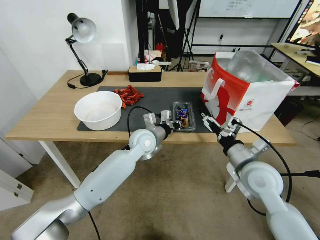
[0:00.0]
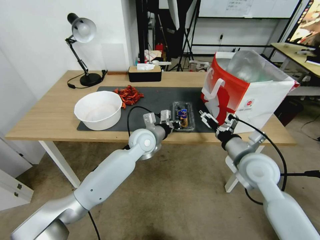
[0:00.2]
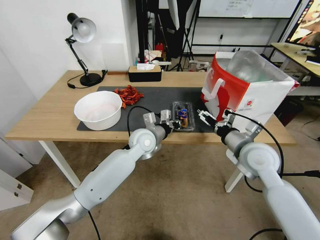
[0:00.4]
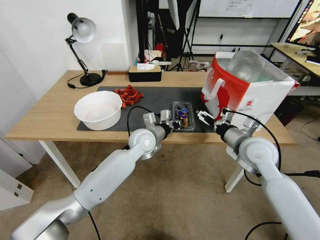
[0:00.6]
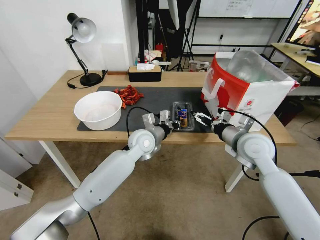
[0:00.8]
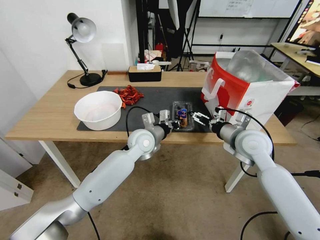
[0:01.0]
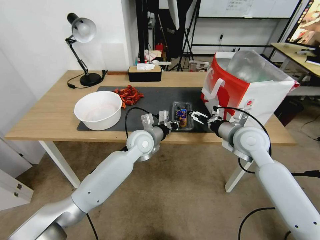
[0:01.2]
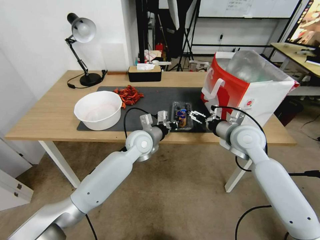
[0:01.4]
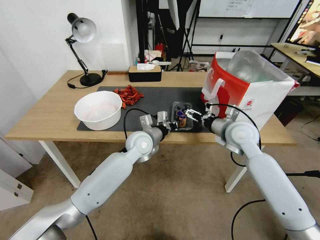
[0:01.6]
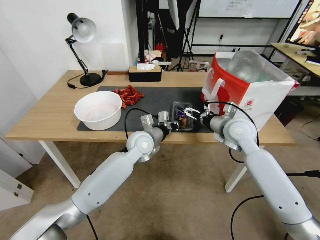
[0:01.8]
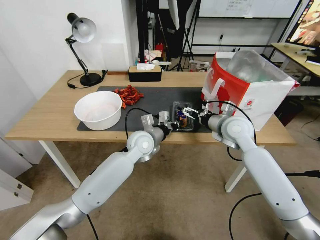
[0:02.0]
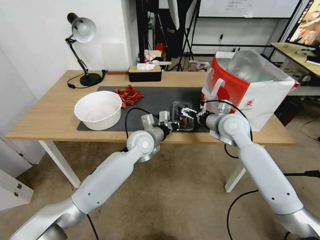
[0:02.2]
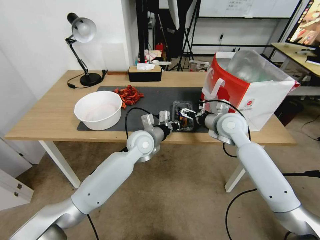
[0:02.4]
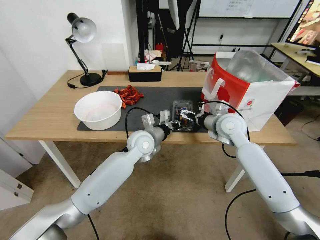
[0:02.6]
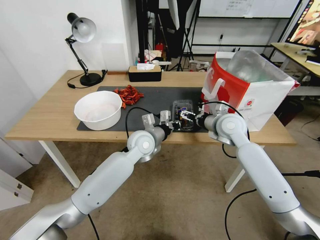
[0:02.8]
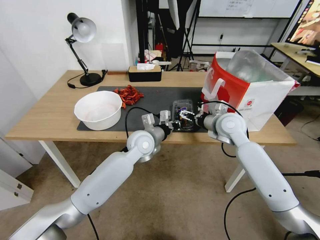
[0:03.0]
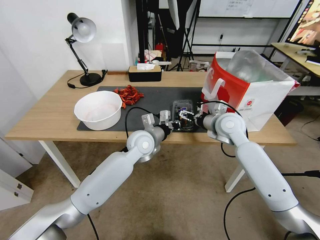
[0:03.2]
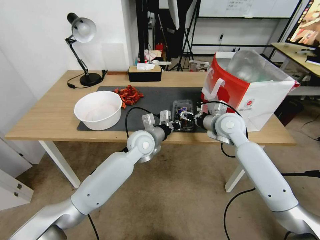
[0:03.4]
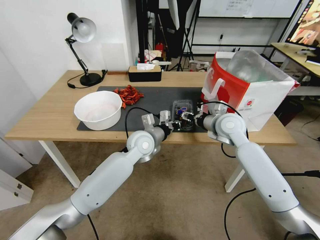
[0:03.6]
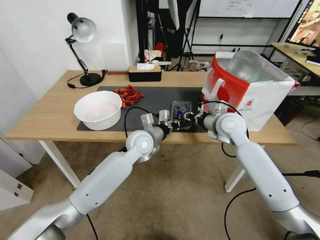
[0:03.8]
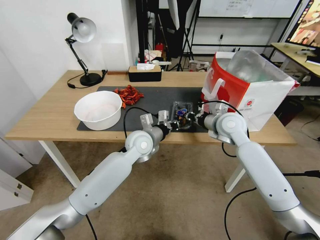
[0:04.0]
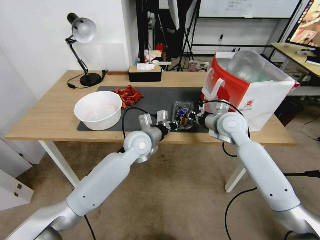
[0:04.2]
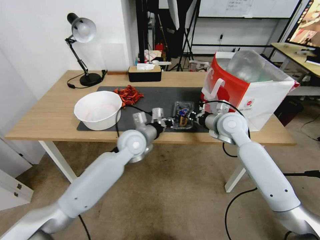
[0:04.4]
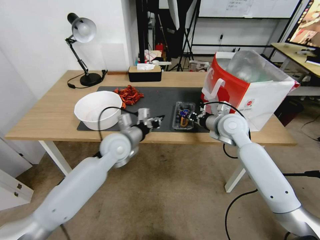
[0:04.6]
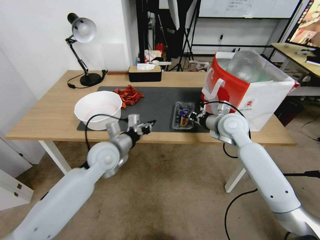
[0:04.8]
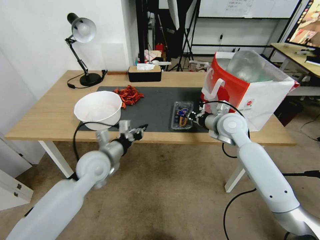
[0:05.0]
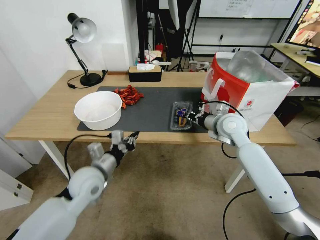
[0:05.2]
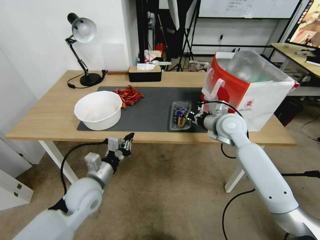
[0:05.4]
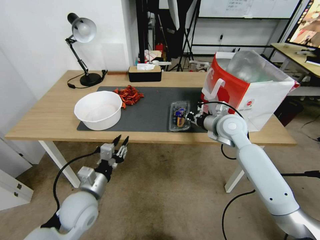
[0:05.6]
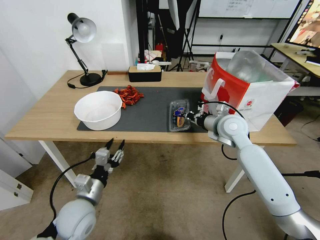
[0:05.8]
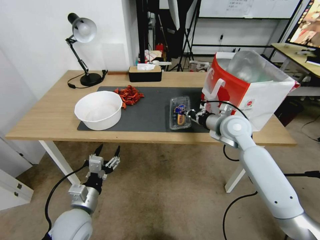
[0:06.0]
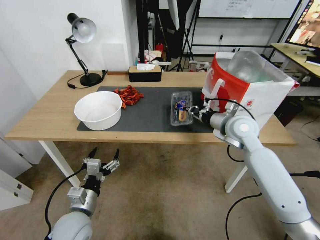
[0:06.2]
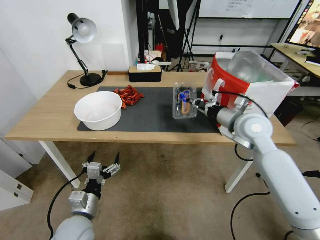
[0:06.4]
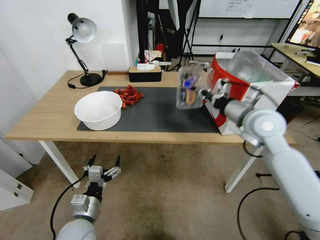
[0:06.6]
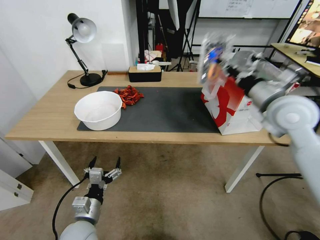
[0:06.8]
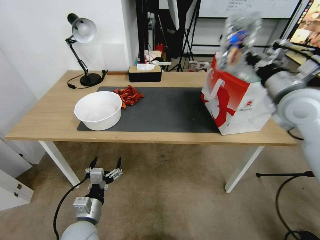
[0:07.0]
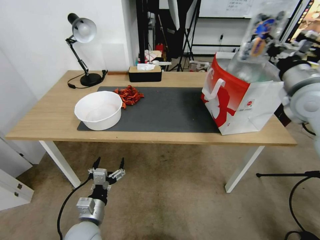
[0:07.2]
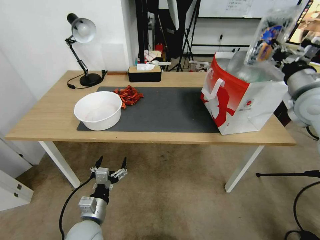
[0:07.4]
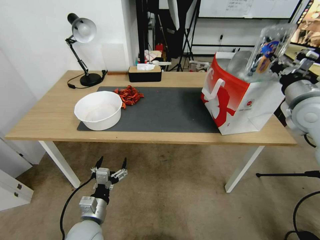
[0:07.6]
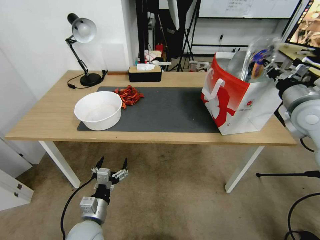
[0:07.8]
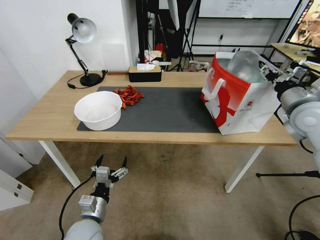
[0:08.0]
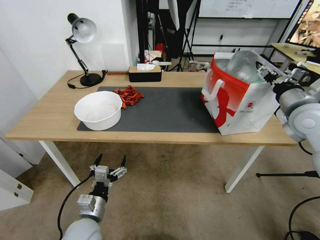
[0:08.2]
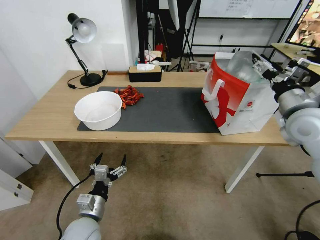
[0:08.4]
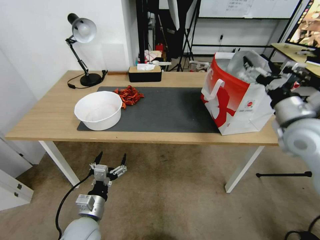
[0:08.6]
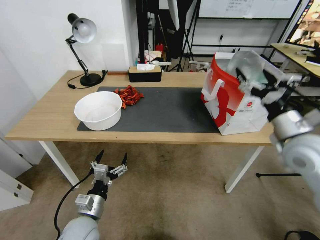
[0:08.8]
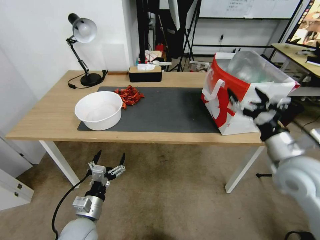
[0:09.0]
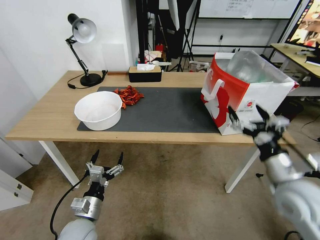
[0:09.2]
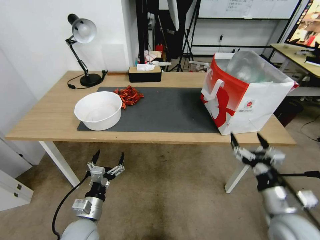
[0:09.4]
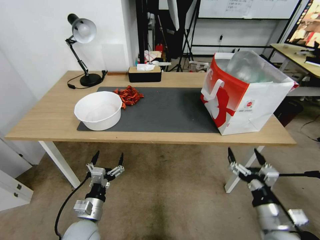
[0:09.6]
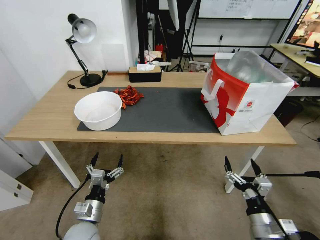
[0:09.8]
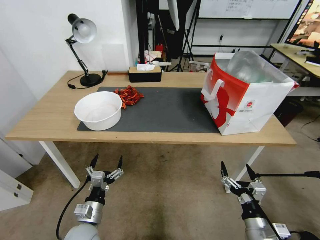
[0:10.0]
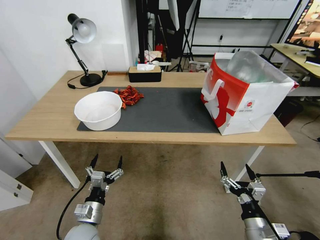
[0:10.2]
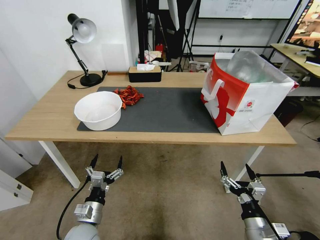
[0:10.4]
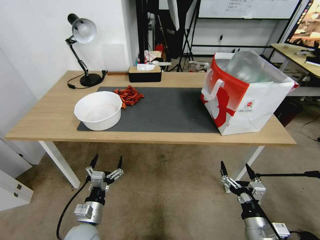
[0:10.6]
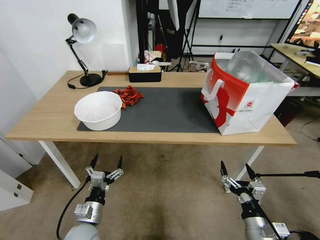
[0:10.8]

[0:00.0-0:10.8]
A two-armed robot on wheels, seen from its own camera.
Task of the whole recording: Close the takeout container lid, then place the container into the takeout bag.
0:00.0 to 0:01.6: The right gripper travels forward by about 10 cm.
0:01.6 to 0:03.0: There are only small adjustments of the grippers.
0:03.0 to 0:04.6: The left gripper moves to the left, roughly 10 cm; the right gripper closes.
0:04.6 to 0:06.2: The left gripper heads backward, downward and to the left, covering some 25 cm, and opens.
0:06.2 to 0:07.8: The right gripper shifts approximately 15 cm to the right and upward.
0:07.8 to 0:09.2: The right gripper moves backward and downward, some 20 cm, and opens its fingers.
0:09.2 to 0:10.8: The right gripper heads downward and backward, covering about 20 cm.
